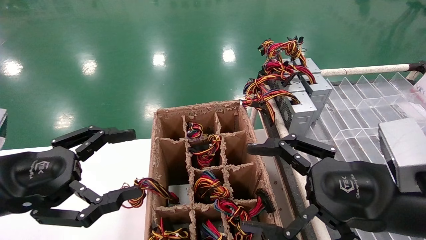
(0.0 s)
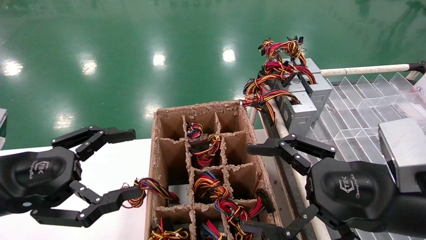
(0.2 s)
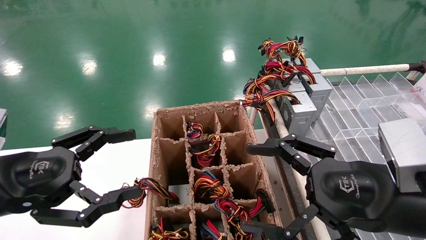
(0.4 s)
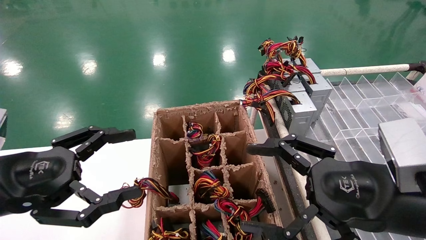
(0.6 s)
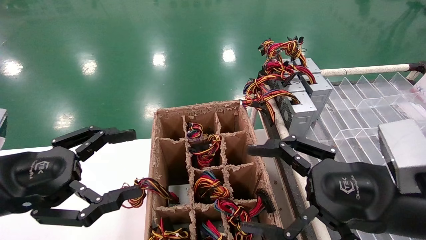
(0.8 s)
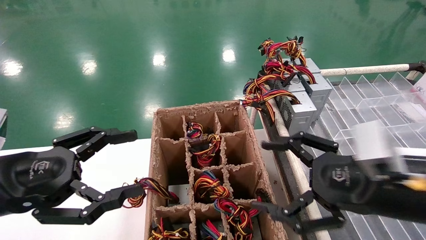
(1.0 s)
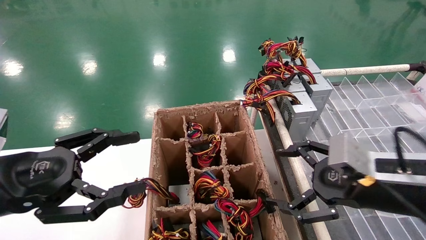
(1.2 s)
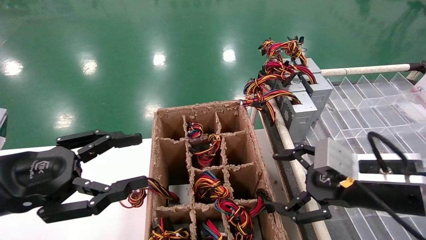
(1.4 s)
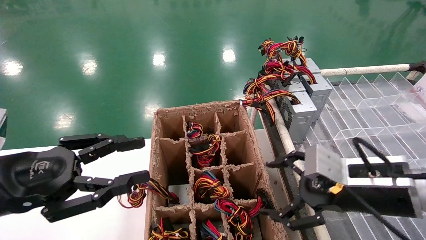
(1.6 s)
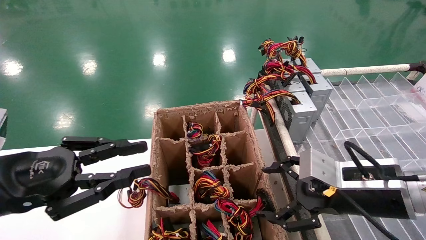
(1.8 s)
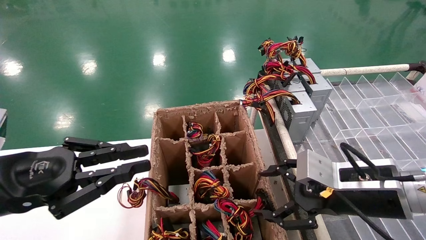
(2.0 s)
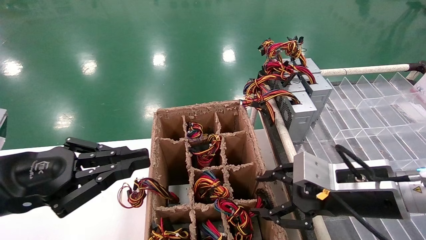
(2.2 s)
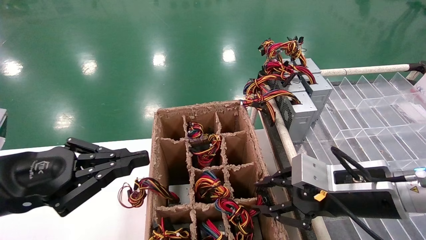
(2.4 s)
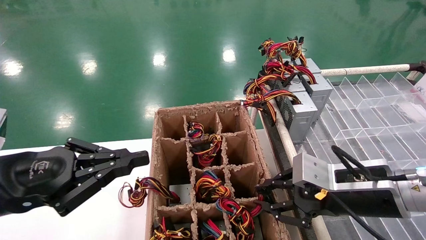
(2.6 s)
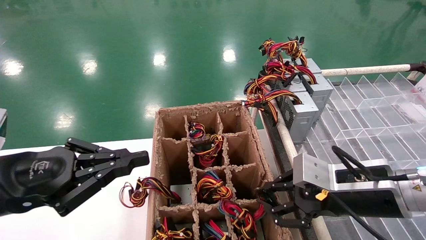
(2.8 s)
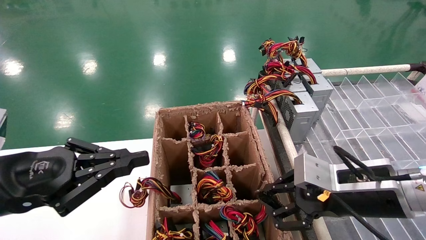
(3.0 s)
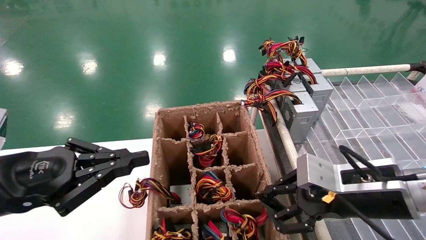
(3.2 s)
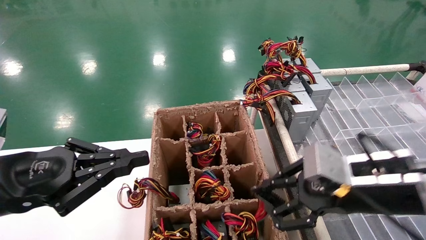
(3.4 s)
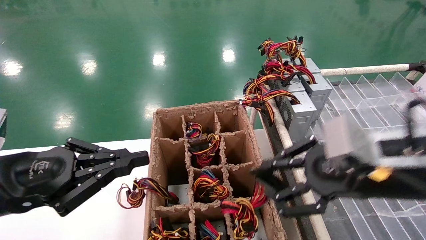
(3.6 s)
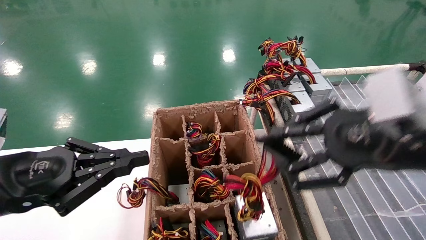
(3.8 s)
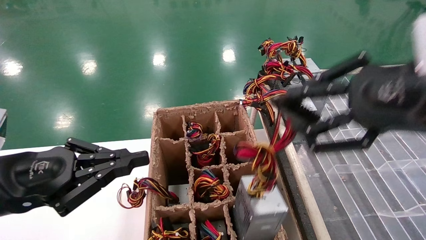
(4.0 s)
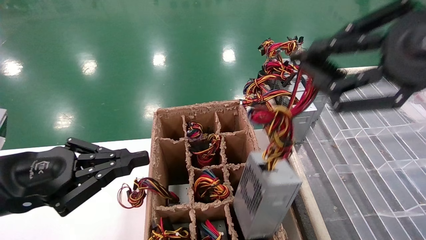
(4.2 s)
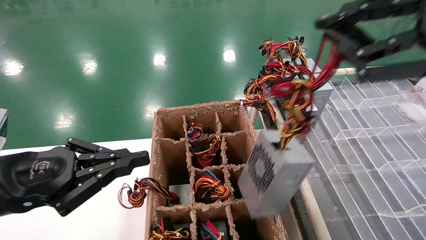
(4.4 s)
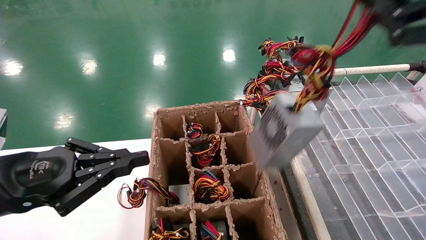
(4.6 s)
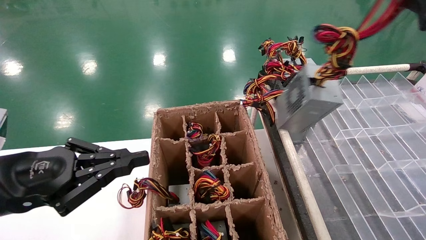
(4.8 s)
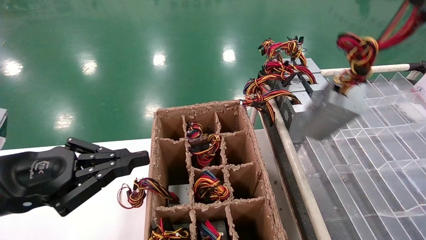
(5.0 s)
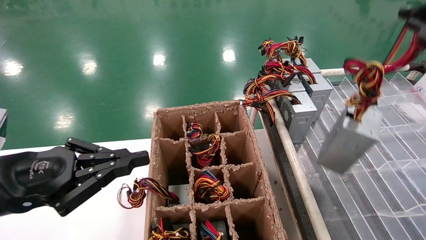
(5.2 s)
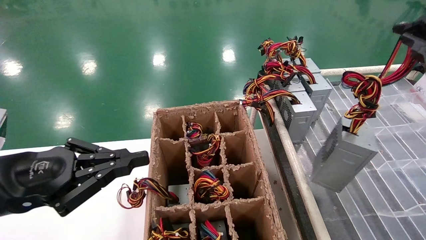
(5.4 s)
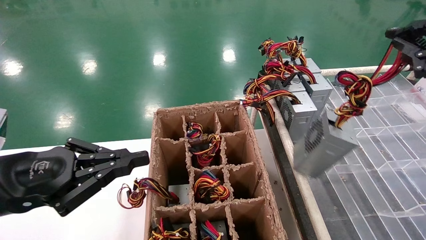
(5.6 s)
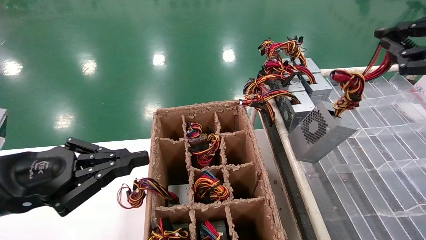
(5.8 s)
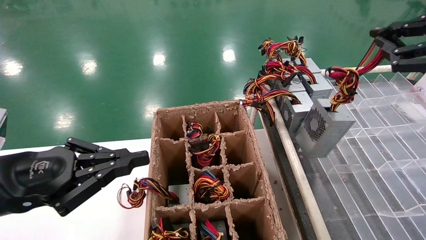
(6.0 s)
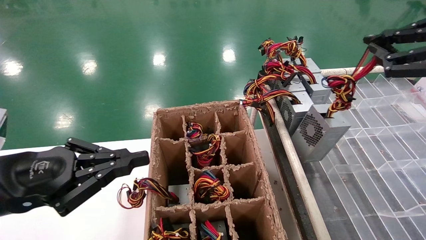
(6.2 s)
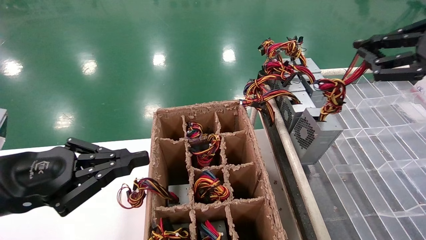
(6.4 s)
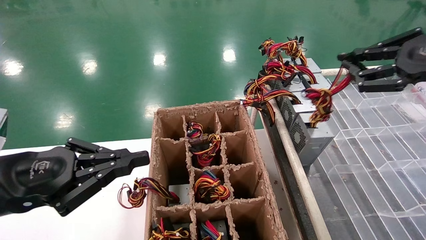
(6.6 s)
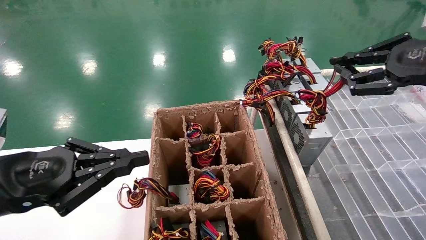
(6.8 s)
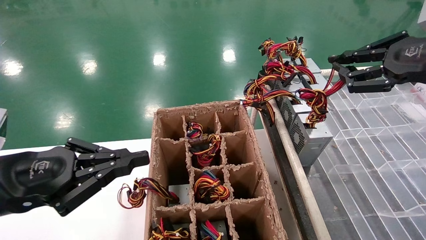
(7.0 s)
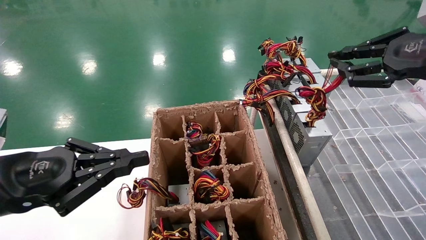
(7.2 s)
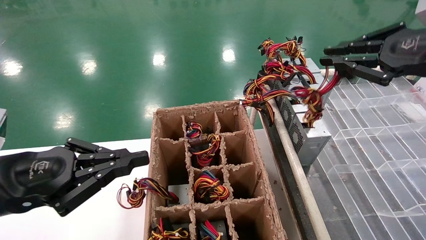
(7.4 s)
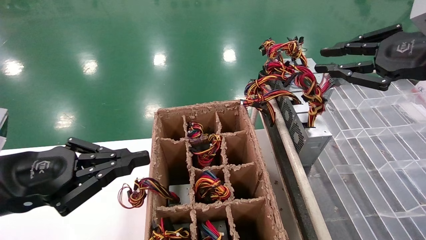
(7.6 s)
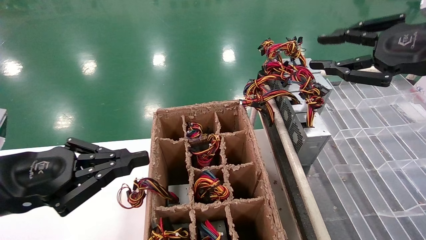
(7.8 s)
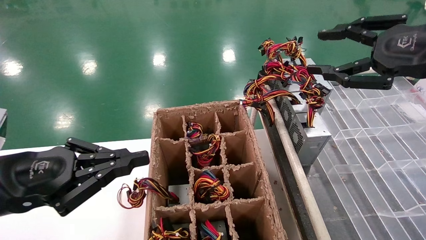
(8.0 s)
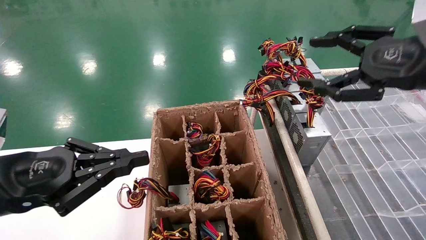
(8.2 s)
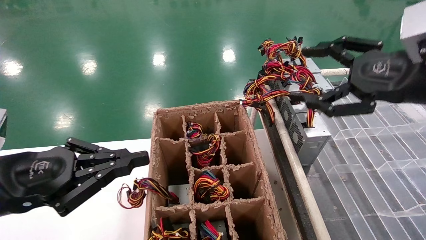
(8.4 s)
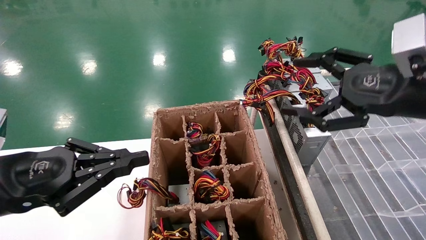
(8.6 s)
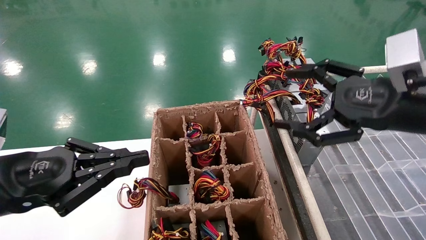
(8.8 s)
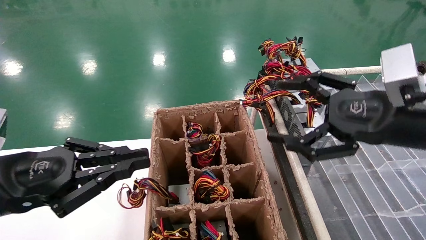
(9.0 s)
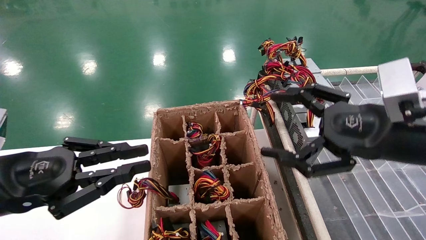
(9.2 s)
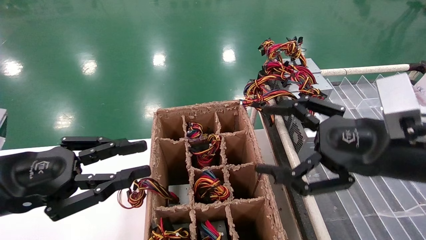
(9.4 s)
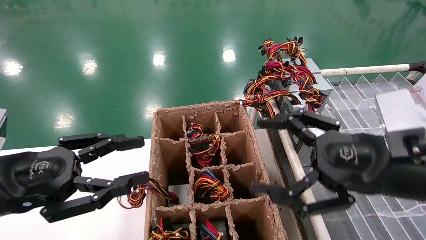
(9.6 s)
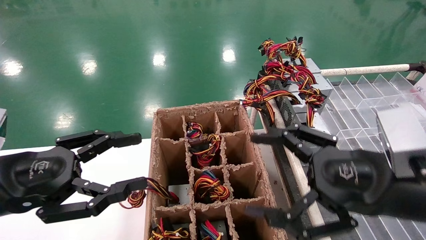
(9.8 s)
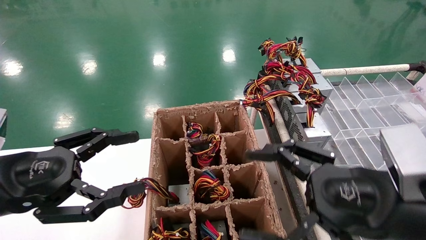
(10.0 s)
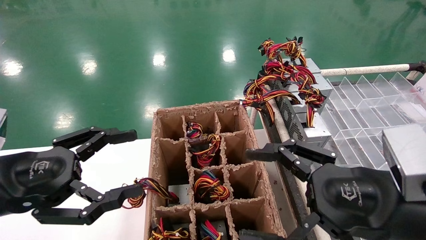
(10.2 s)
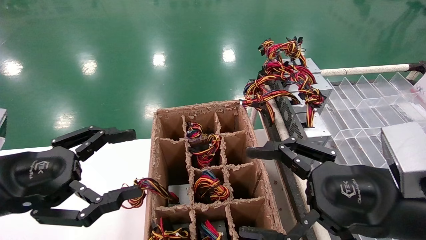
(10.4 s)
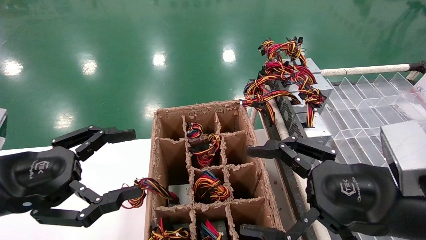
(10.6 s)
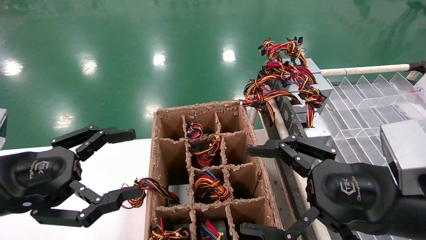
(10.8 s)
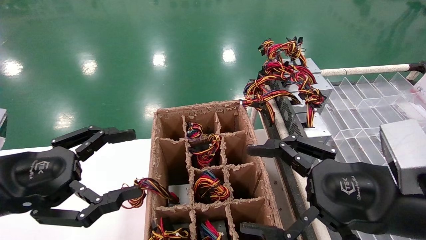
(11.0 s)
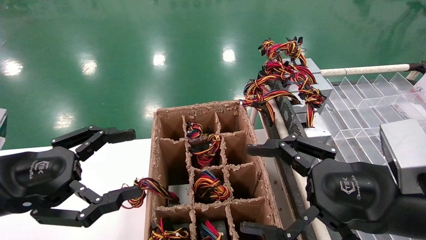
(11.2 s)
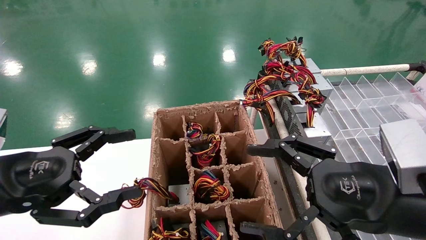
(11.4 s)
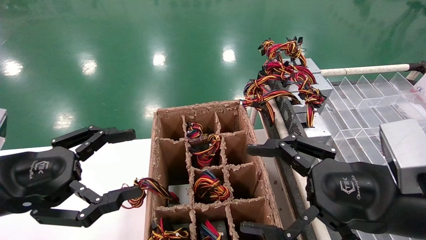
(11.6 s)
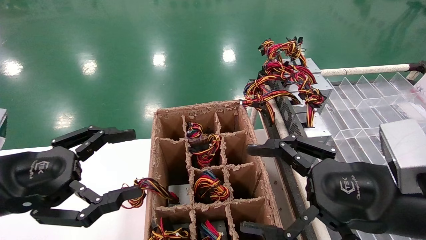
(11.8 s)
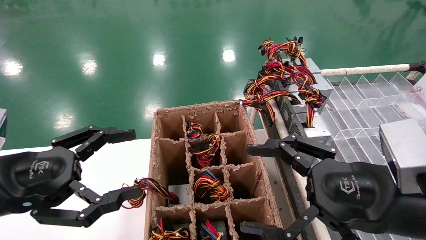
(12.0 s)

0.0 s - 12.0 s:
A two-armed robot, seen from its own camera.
Step, 1.2 s - 2.8 s: Grab the main unit power supply from the containment box.
Step, 3.0 s - 7.8 s: Place the main unit power supply in the designated area.
0.0 s - 1.6 s: The right gripper is displaced forward by some 5 cm. The left gripper closes its fingers.
1.6 s - 3.0 s: The left gripper closes its fingers; the right gripper closes its fingers.
3.0 s - 4.4 s: The right gripper heads upward and backward, covering approximately 25 cm.
4.4 s - 6.0 s: The right gripper moves to the right and forward, some 15 cm.
6.0 s - 7.6 s: The right gripper shifts roughly 5 cm to the left.
7.6 s - 9.0 s: The right gripper travels downward and to the left by some 10 cm, and opens.
9.0 s - 10.4 s: The right gripper is displaced downward and backward by some 10 cm. Meanwhile the left gripper opens up.
10.4 s - 12.0 s: The two grippers keep their place.

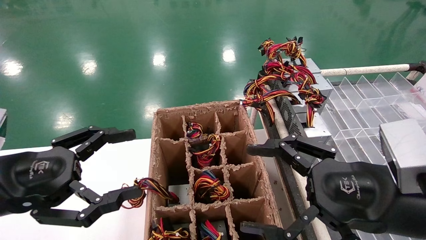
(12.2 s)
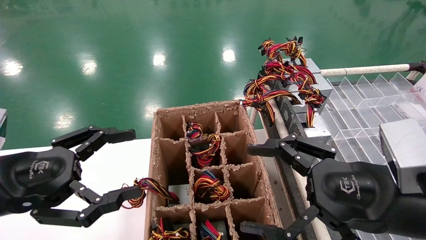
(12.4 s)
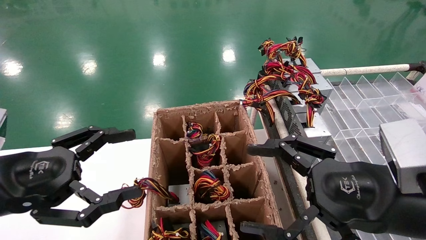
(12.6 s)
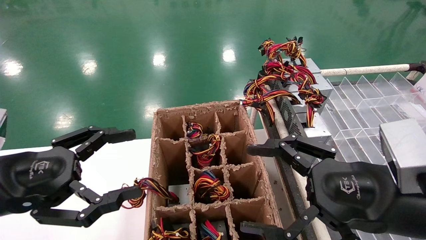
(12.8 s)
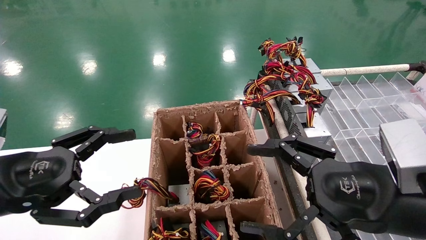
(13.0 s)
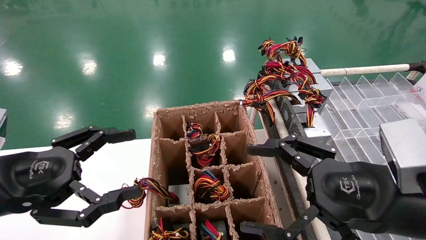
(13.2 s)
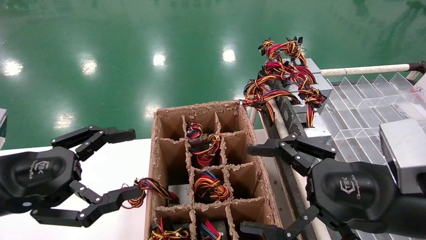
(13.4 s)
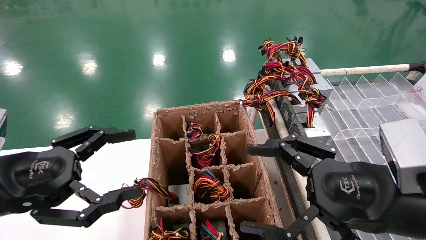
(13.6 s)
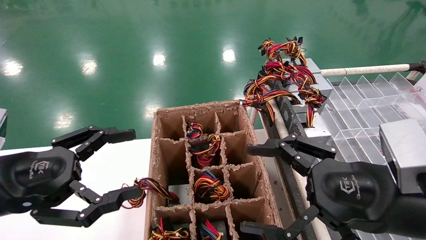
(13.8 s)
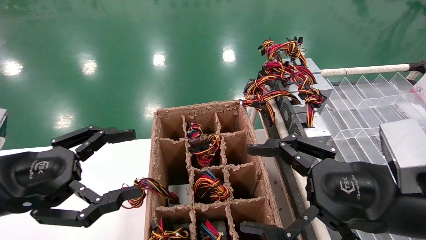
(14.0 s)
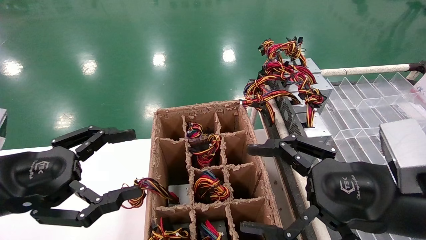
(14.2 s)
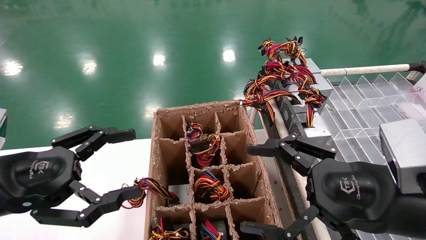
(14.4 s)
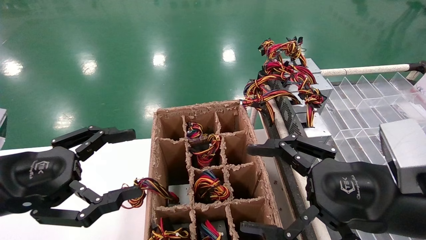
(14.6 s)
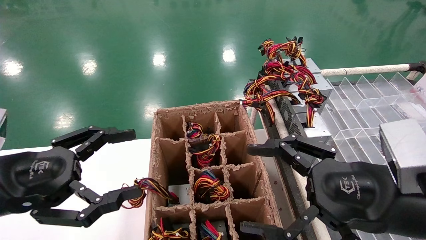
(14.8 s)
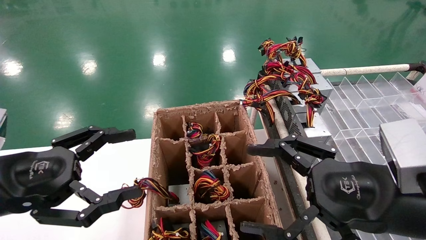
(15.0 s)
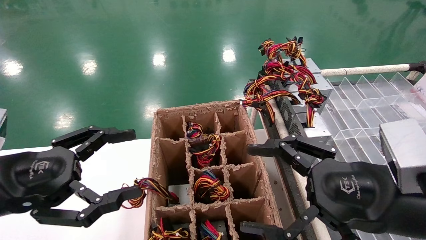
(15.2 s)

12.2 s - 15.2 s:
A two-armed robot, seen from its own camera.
12.2 s - 15.2 s: Both grippers stay put.
